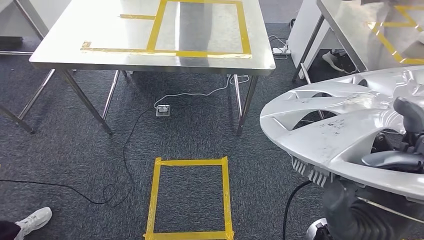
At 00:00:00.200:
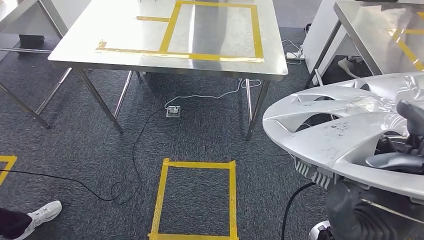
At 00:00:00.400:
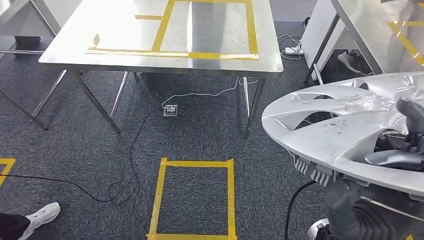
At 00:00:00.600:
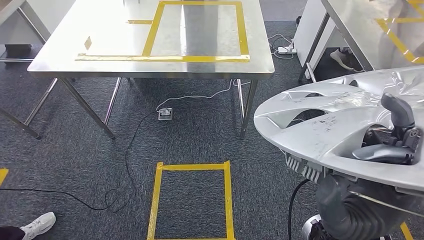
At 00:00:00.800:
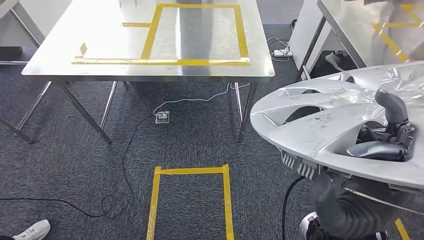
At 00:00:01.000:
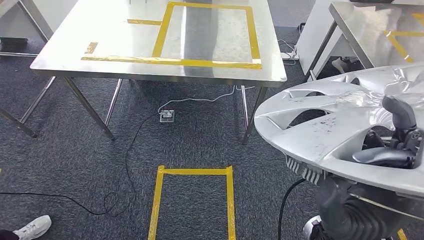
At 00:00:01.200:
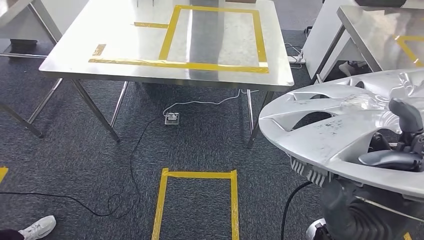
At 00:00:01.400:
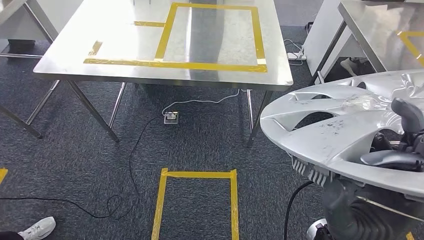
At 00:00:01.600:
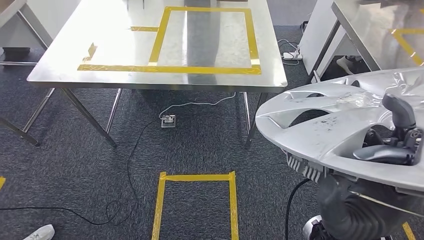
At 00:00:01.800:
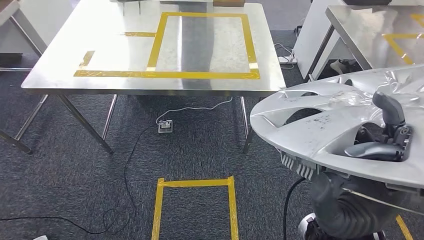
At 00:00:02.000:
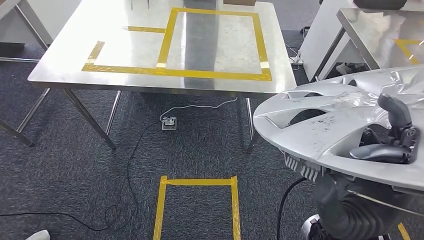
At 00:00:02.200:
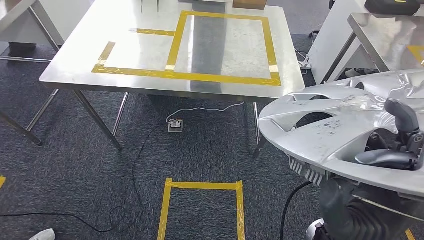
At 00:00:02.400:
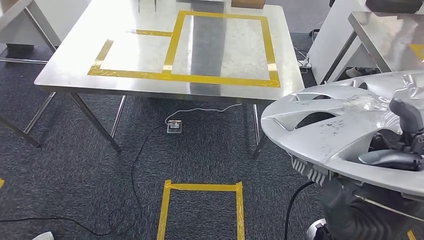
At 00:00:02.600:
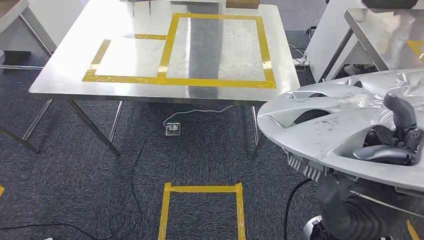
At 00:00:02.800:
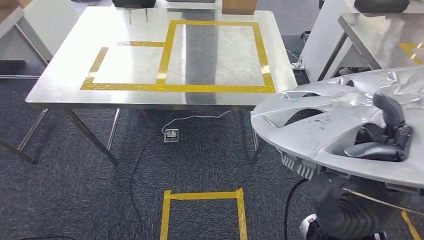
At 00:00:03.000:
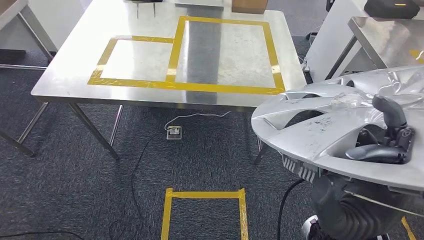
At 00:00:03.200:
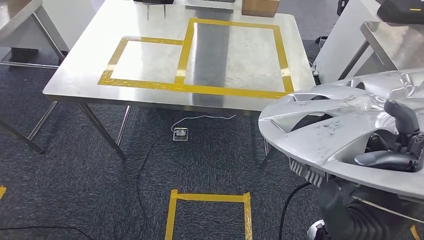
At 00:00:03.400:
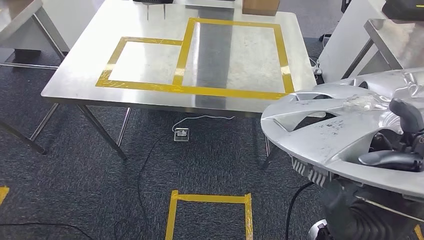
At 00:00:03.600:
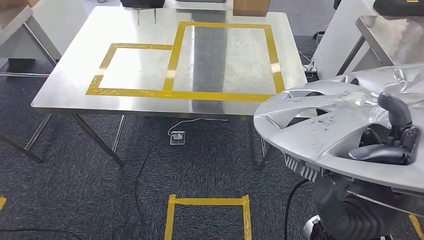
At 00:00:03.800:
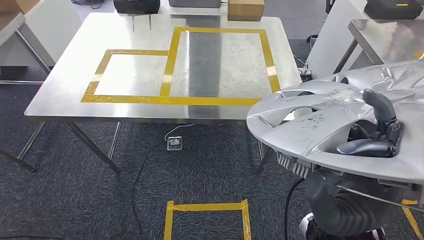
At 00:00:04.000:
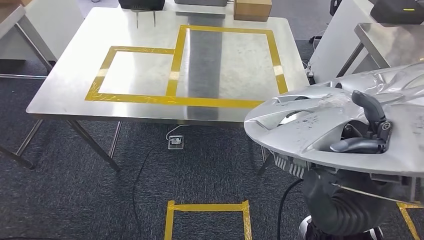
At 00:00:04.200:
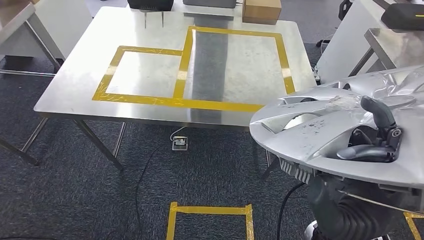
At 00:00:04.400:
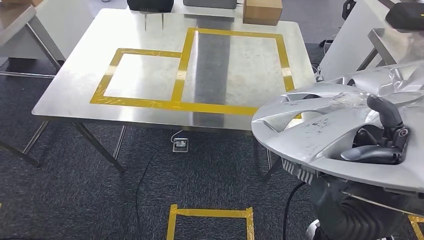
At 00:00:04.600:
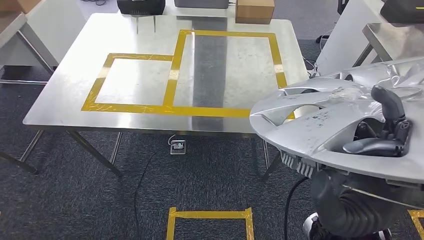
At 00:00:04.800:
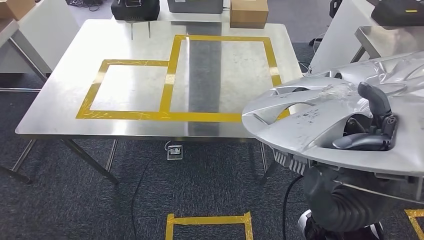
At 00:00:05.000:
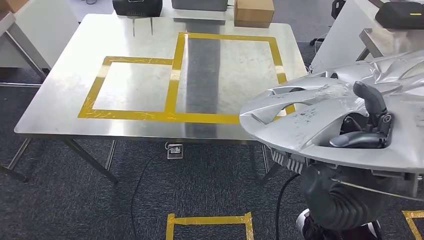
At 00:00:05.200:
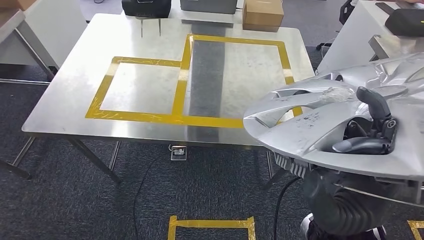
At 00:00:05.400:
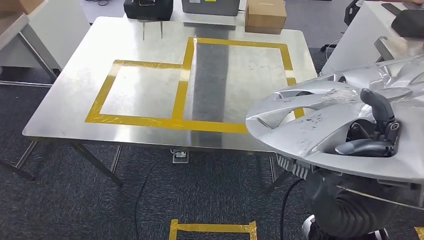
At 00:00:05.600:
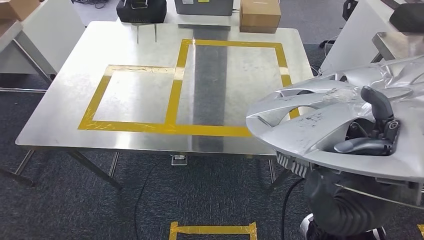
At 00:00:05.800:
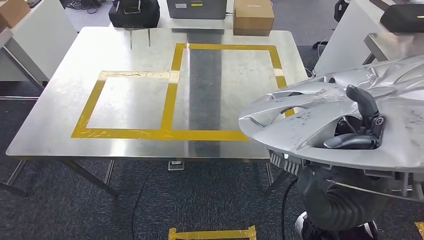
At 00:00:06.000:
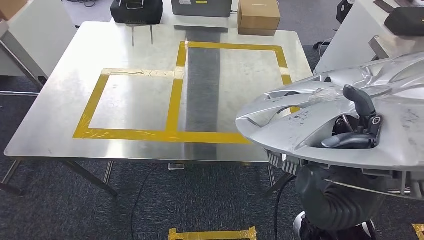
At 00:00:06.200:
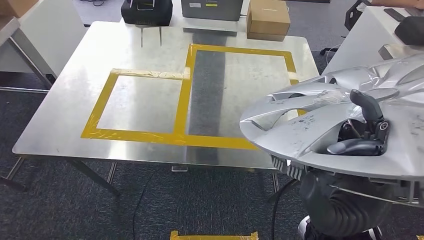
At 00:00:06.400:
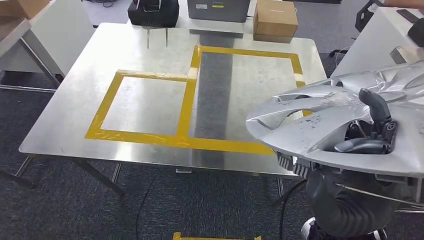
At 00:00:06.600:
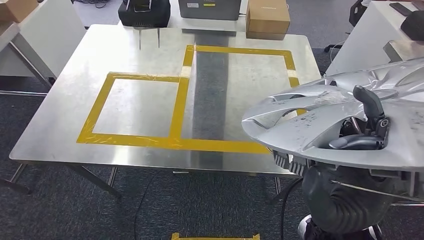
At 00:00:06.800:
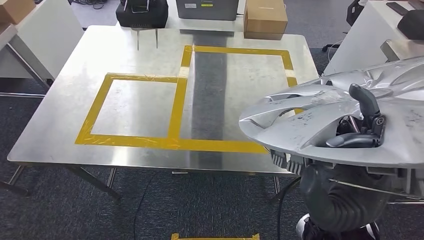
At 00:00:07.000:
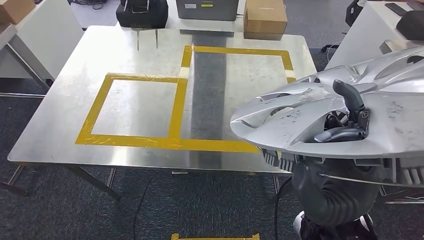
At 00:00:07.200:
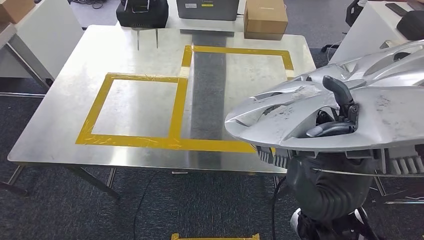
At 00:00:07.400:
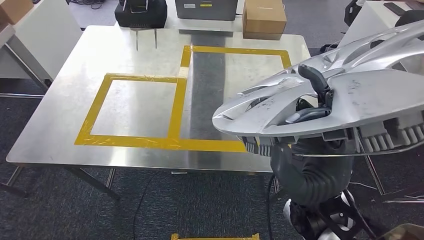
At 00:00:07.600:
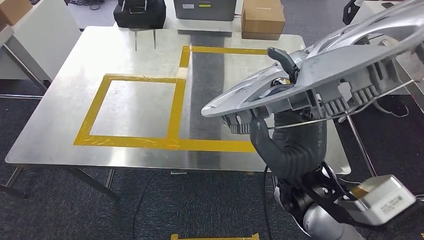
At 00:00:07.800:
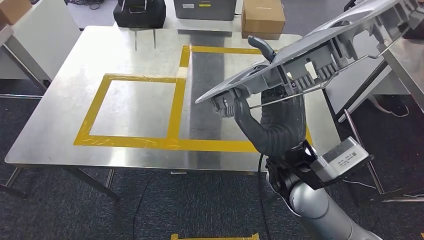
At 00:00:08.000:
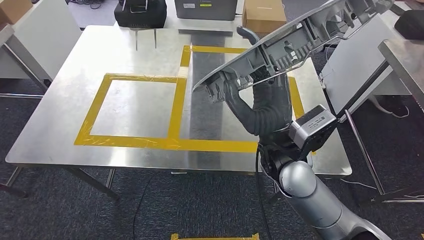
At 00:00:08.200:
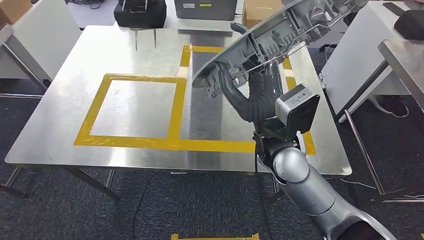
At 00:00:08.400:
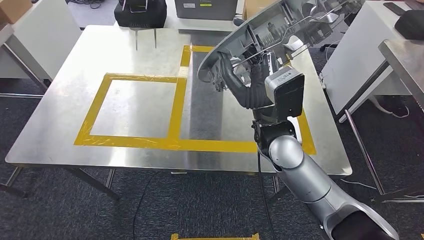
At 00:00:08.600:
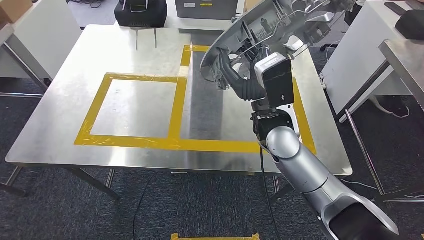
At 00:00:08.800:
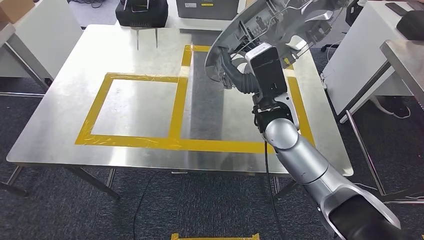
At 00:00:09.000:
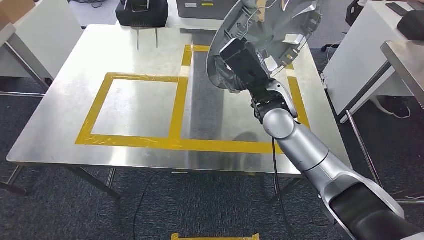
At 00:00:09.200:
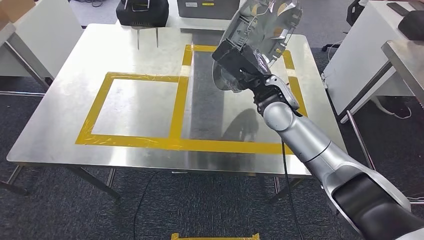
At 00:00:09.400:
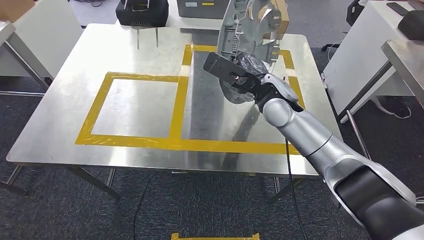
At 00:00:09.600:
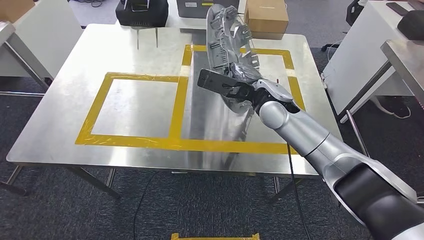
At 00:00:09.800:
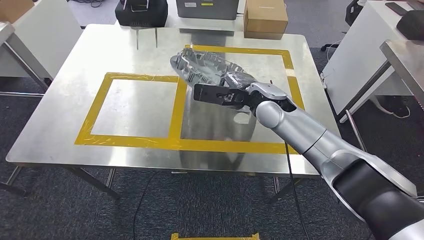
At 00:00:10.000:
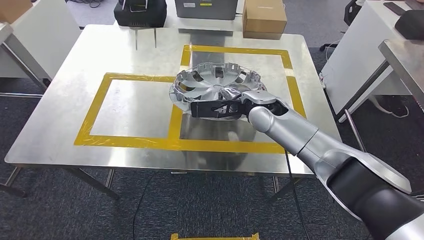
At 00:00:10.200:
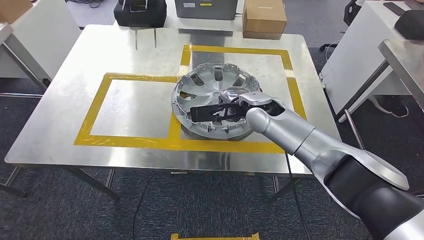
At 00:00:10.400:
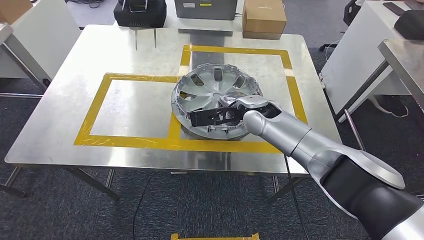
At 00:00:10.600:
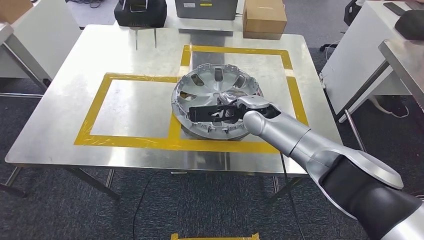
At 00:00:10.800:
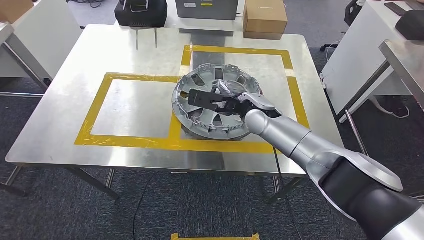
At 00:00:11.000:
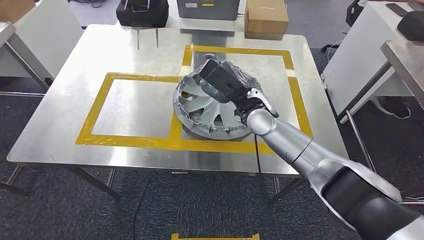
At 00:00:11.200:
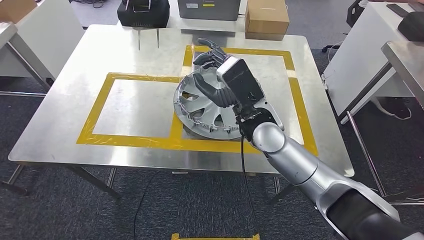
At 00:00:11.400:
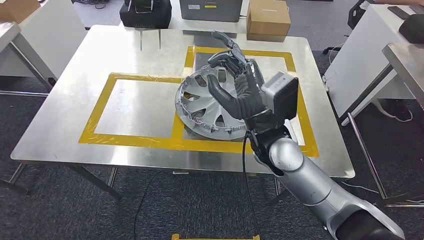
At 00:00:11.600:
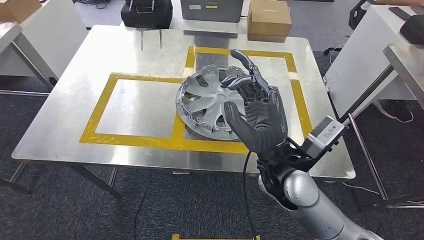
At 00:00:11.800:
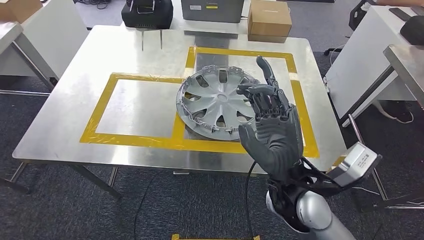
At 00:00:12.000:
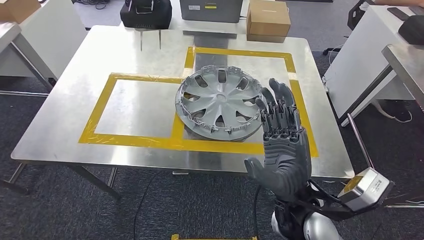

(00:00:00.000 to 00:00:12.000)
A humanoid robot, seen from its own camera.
Step, 00:00:00.000 - 00:00:05.000: Move the small parts to the workbench.

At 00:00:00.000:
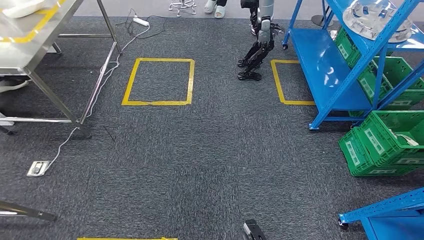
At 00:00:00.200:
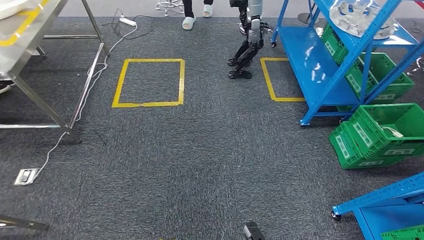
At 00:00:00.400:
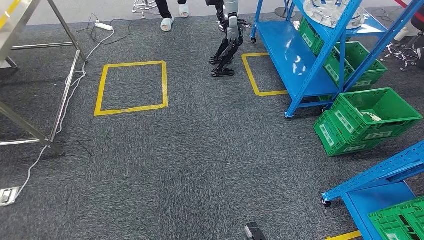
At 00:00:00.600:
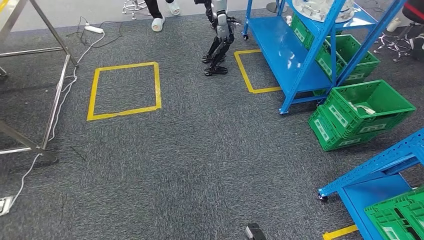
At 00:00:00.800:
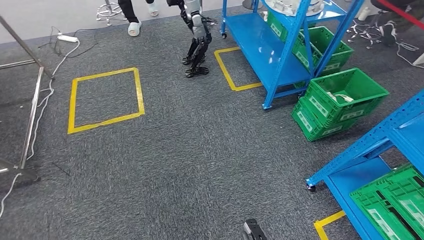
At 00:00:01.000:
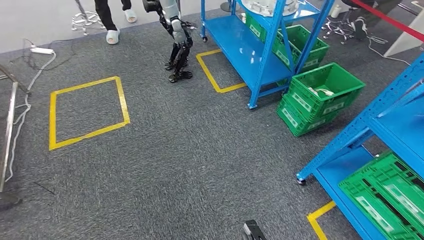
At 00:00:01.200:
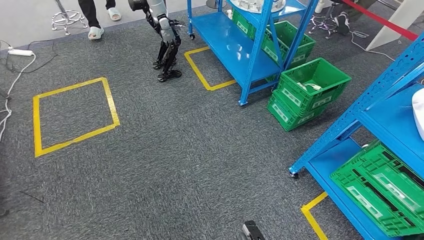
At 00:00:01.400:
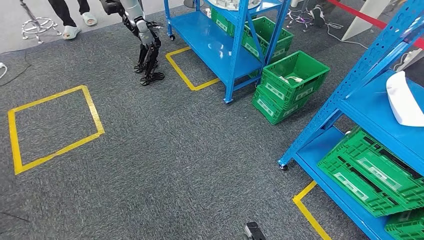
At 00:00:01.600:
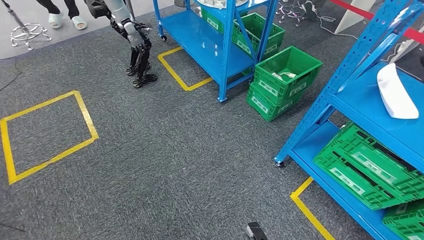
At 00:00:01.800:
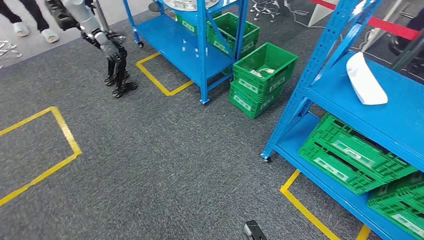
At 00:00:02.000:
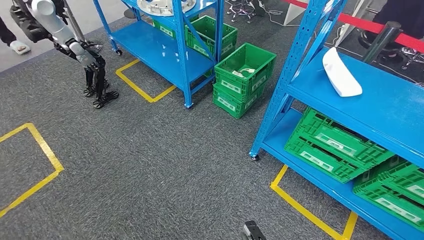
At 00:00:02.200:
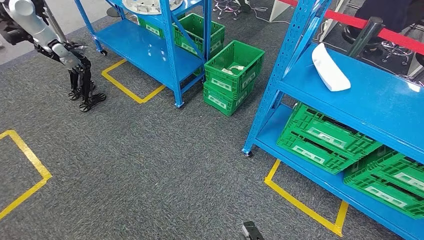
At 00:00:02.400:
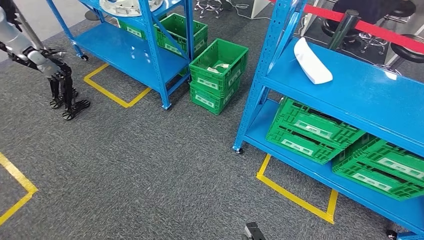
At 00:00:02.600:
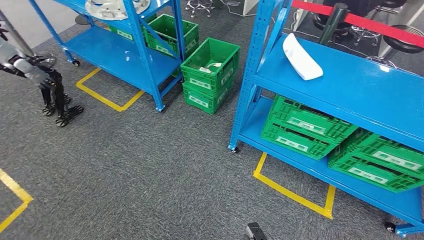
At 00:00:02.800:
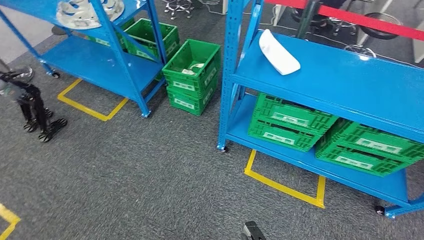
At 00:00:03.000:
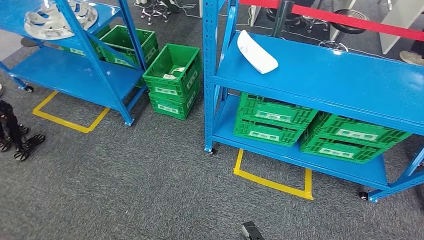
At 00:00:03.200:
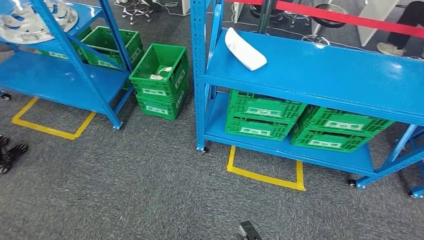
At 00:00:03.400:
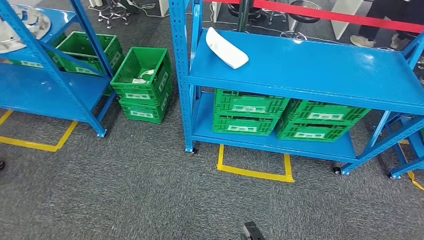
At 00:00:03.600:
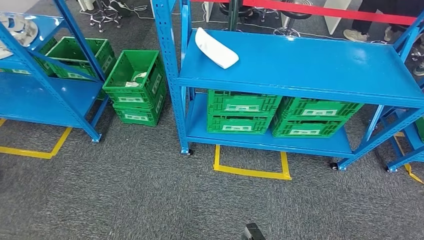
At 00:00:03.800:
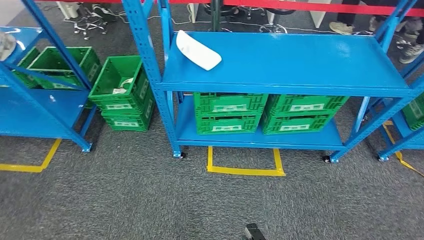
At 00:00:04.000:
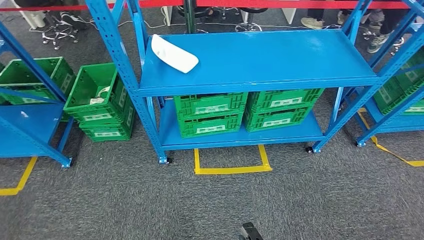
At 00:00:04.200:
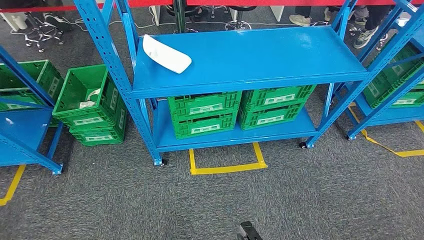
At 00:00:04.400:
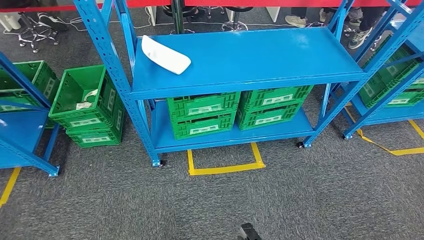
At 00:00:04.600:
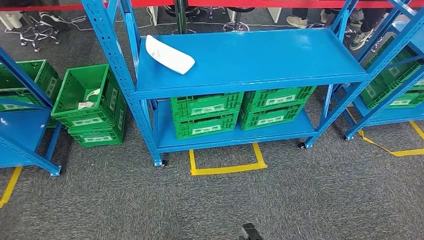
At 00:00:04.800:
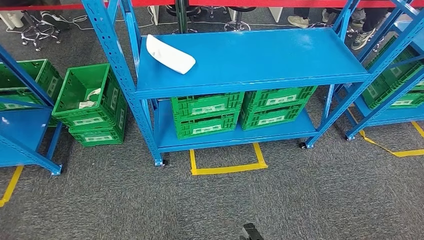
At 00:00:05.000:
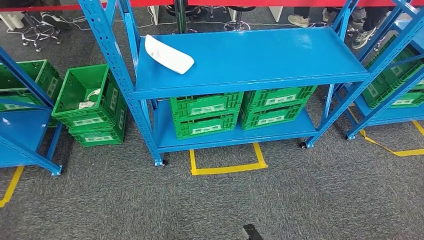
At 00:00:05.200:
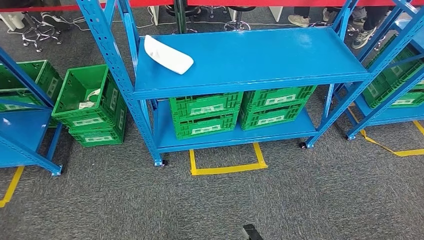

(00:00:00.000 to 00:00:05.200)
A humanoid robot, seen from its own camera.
Step, 00:00:00.000 - 00:00:05.200: Move to the initial position of the workbench.
